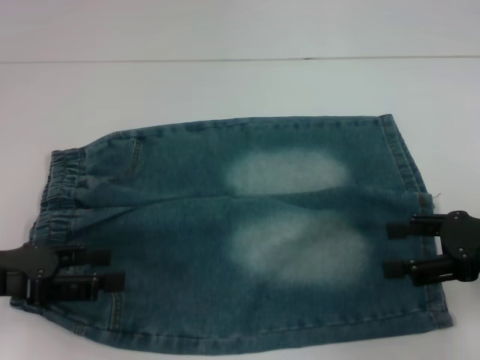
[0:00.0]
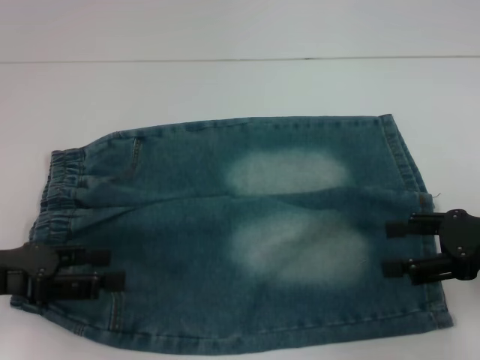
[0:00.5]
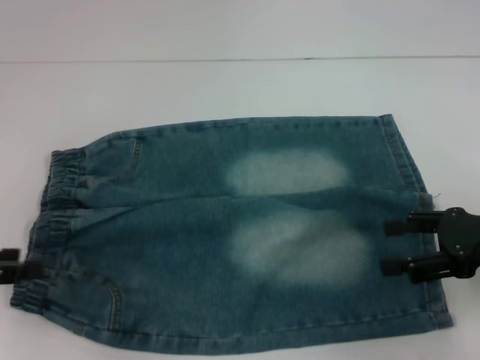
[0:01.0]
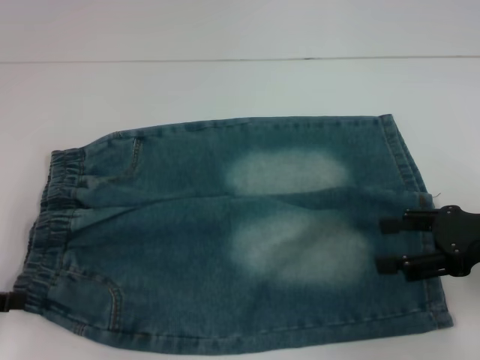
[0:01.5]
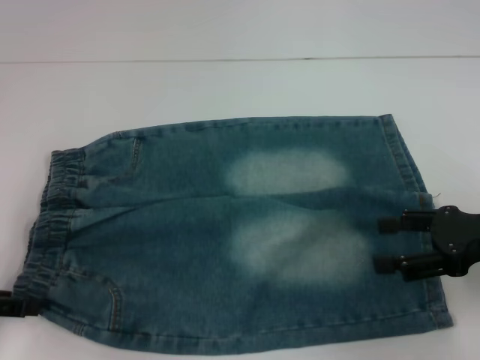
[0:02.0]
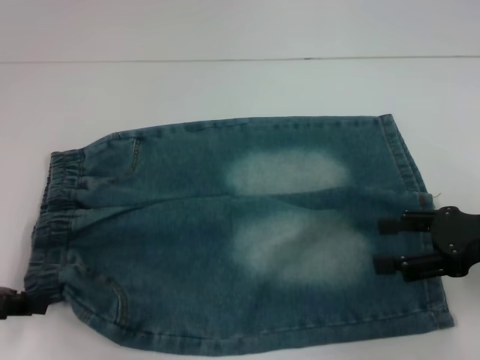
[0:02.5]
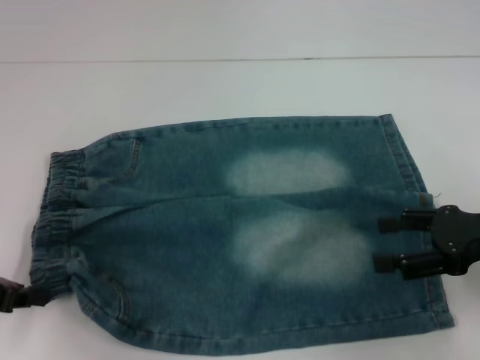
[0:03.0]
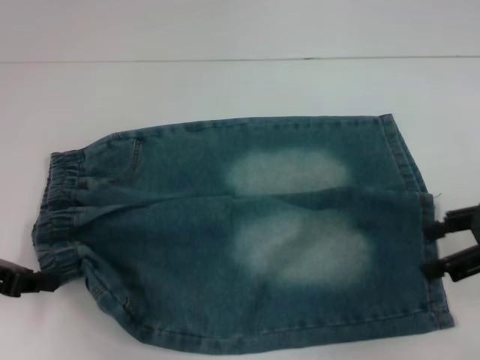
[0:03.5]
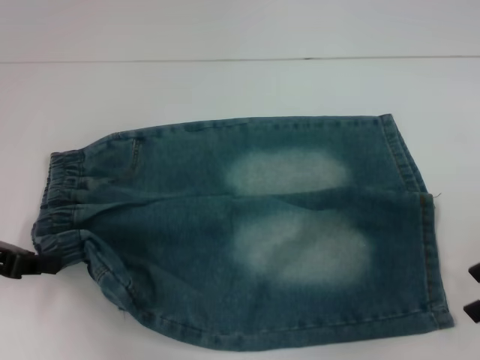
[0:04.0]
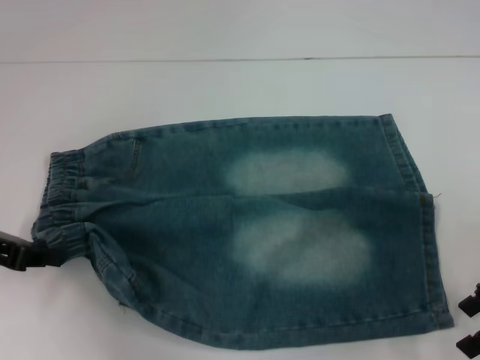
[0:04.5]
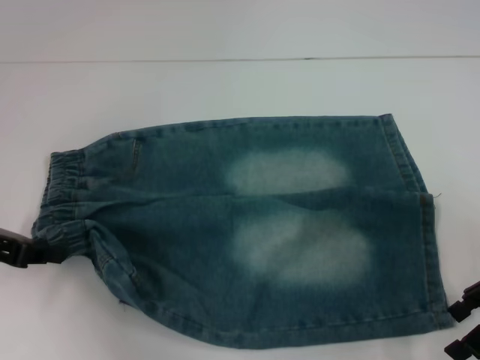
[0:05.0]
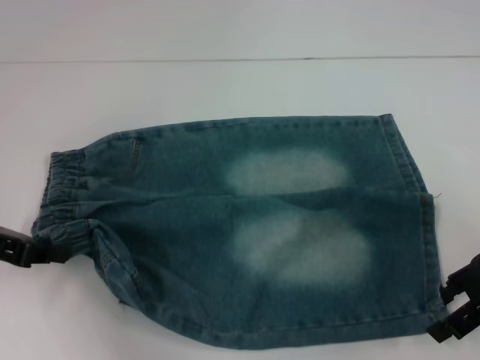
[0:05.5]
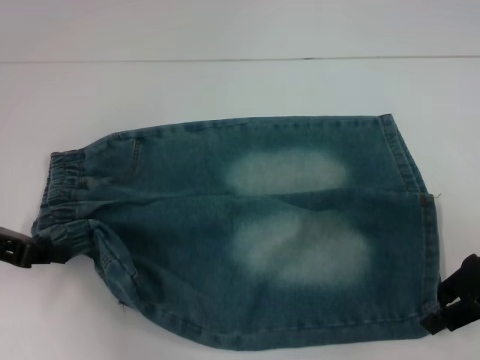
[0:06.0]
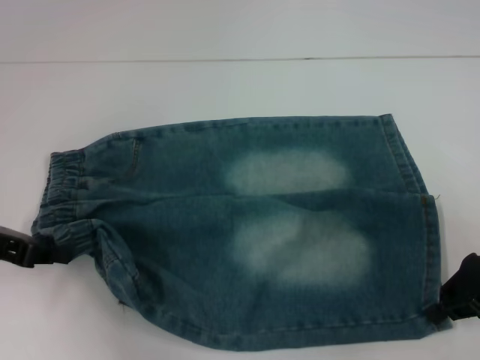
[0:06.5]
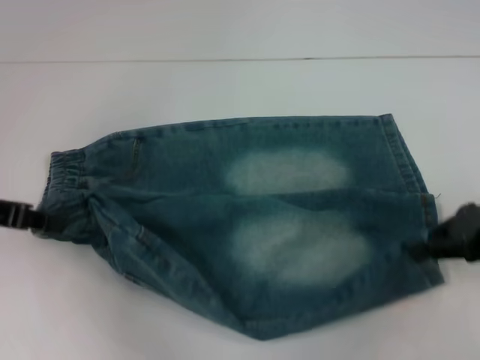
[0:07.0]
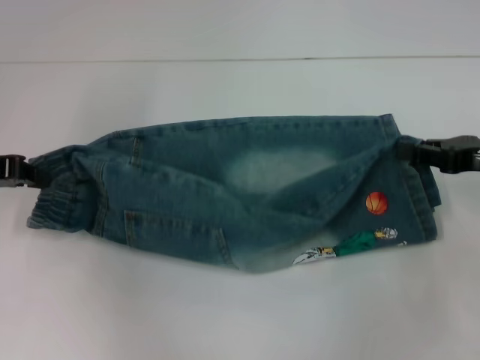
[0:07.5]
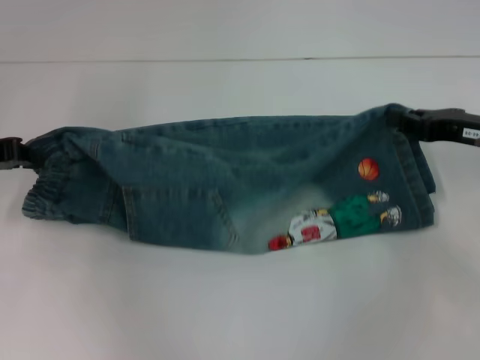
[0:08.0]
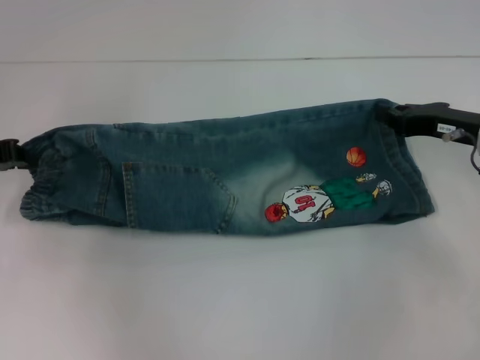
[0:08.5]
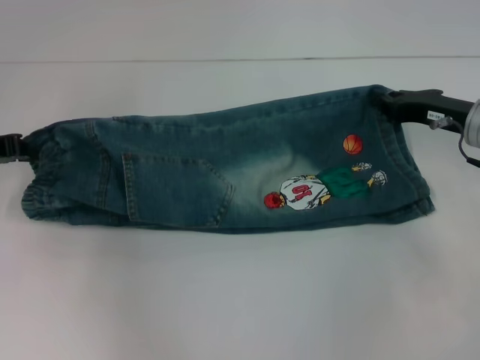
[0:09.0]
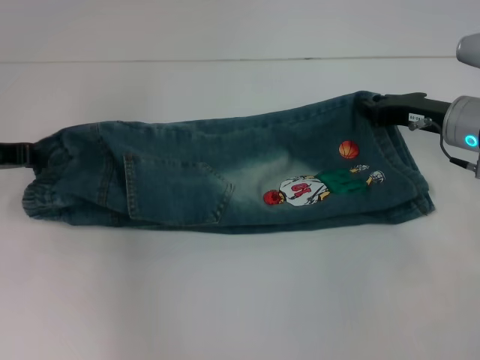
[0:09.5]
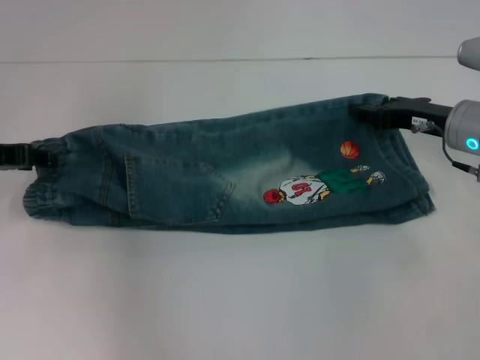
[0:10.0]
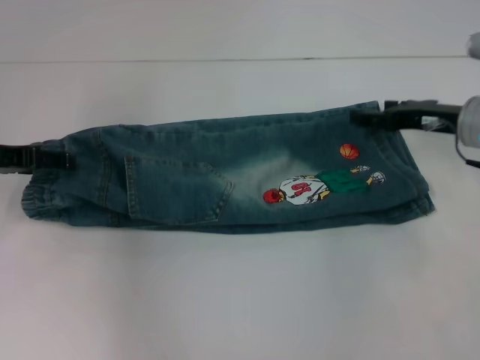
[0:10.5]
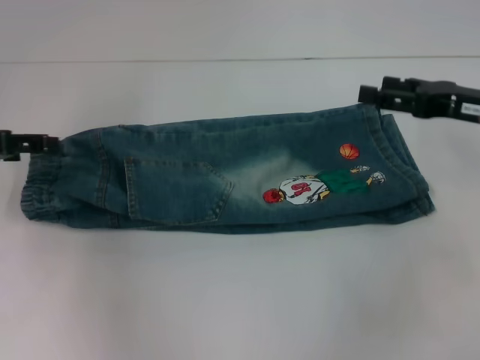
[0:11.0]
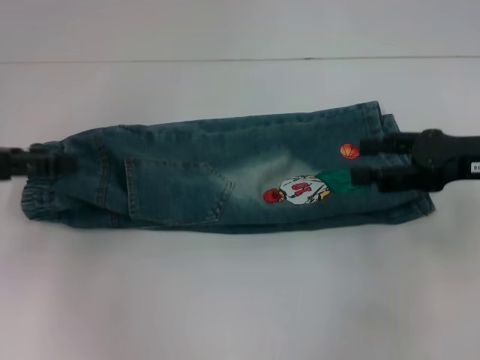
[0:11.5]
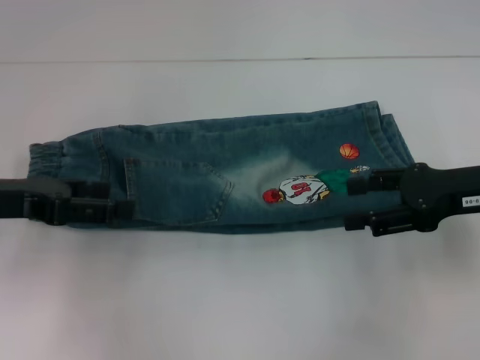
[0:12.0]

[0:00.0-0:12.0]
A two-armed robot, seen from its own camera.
Step, 0:00.0 to 0:02.0: Hold the lower left waistband with your left hand.
Step, 0:02.5 to 0:06.0: Grab the lower right pant leg with your right hand.
Step, 0:06.5 to 0:10.5: Fold upward with your right hand.
0:00.0 to 0:02.0: The left gripper heads to the left, covering some 5 cm.
0:02.0 to 0:04.0: The left gripper moves roughly 5 cm, and closes its fingers. Meanwhile the right gripper changes place by some 5 cm.
0:04.0 to 0:06.0: The right gripper moves about 5 cm.
0:06.0 to 0:08.0: The left gripper shifts approximately 5 cm forward. Meanwhile the right gripper shifts by approximately 5 cm, and closes up.
0:08.0 to 0:10.0: The right gripper heads to the left, covering approximately 5 cm, and opens.
0:10.0 to 0:12.0: The left gripper heads backward, covering roughly 5 cm, and opens, while the right gripper shifts about 10 cm backward and upward, and opens up.

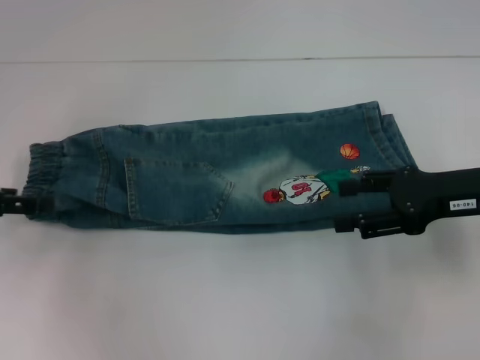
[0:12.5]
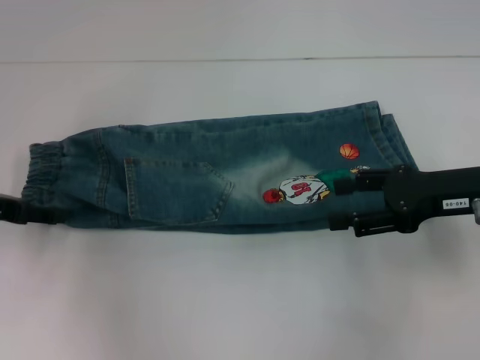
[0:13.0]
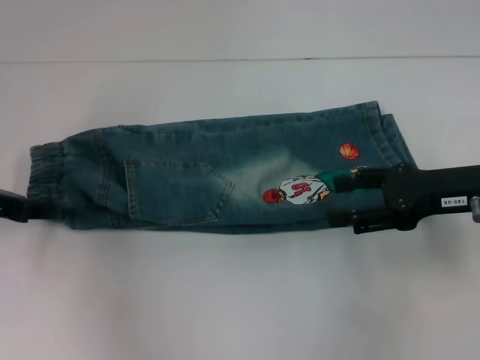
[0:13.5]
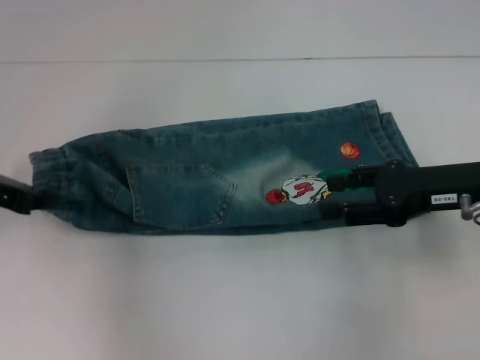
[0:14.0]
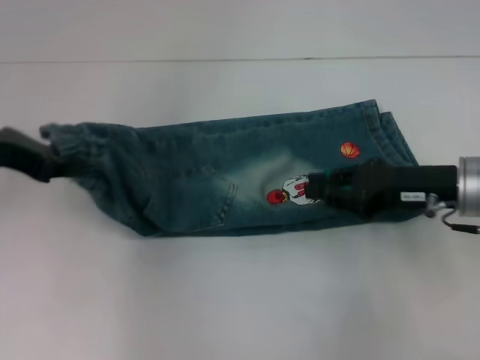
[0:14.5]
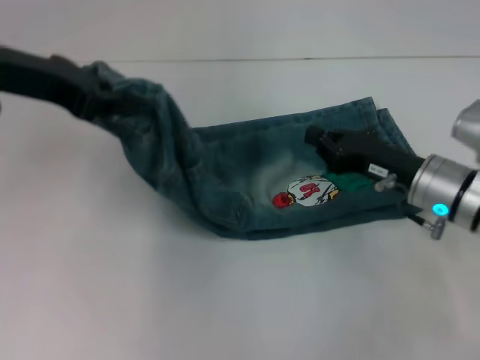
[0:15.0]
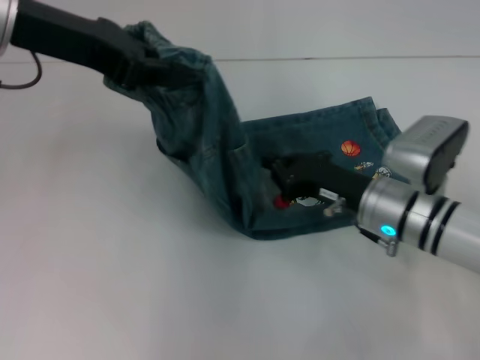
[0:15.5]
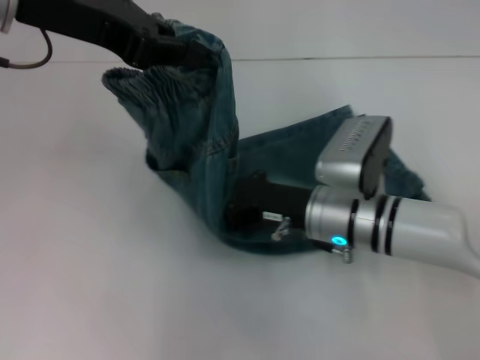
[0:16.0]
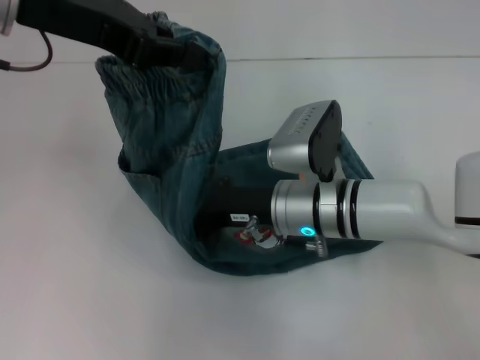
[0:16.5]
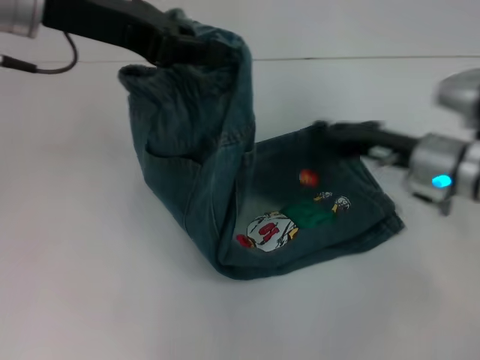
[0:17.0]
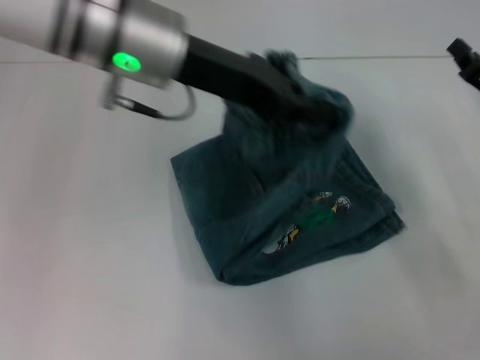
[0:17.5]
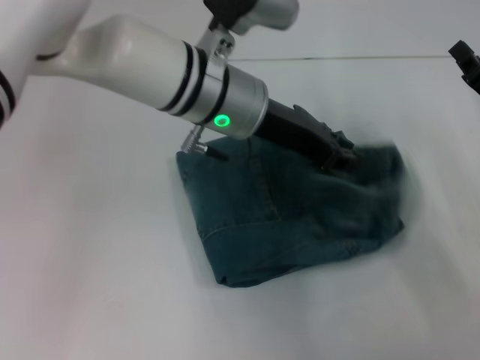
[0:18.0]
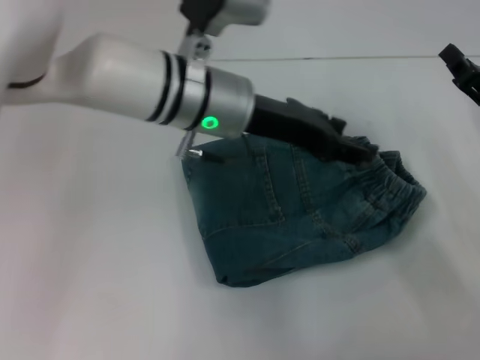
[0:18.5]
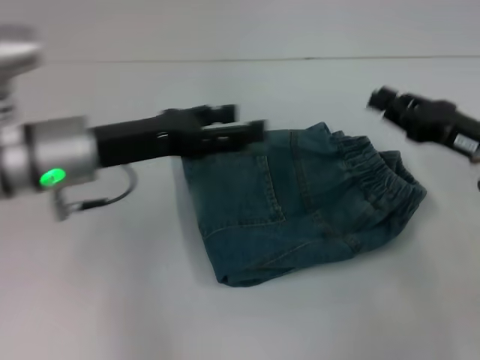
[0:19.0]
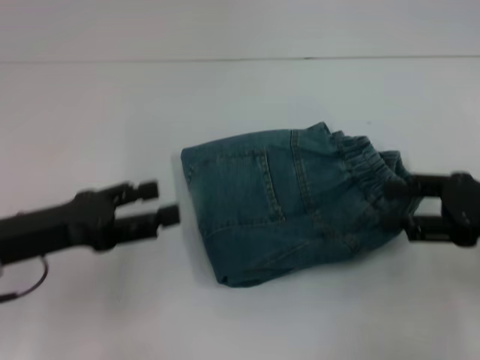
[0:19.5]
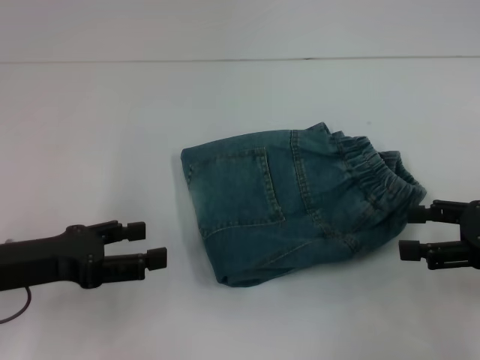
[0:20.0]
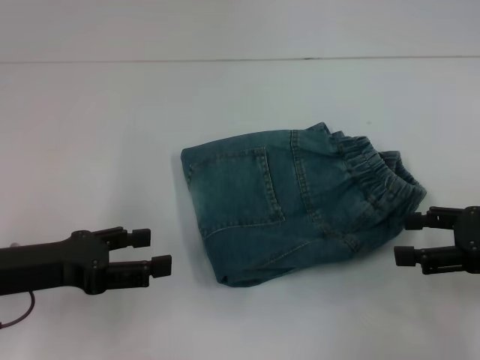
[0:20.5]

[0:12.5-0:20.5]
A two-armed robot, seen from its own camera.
Step, 0:14.0 to 0:16.5: Press the middle of the pants with your right hand.
Step, 0:17.0 to 0:18.0: Fold to the right with your left hand.
0:12.5 to 0:14.5: The left gripper shifts roughly 10 cm to the right and upward, and closes its fingers; the right gripper closes.
0:14.5 to 0:16.5: The right gripper travels to the left by some 15 cm, and closes its fingers, while the left gripper moves upward and to the right, about 10 cm.
0:16.5 to 0:18.5: The left gripper heads to the right and downward, covering approximately 20 cm, and opens. The right gripper is displaced to the right by roughly 20 cm.
0:18.5 to 0:20.5: The right gripper shifts approximately 5 cm backward, and opens. Meanwhile the left gripper moves to the left and backward, some 25 cm, and opens its fingers.

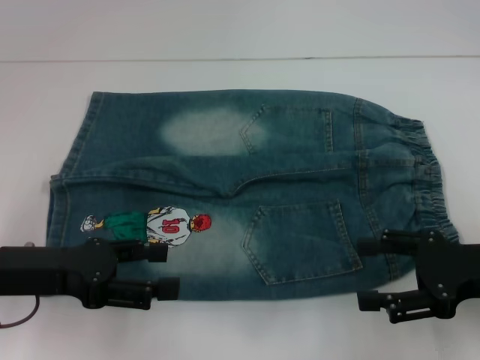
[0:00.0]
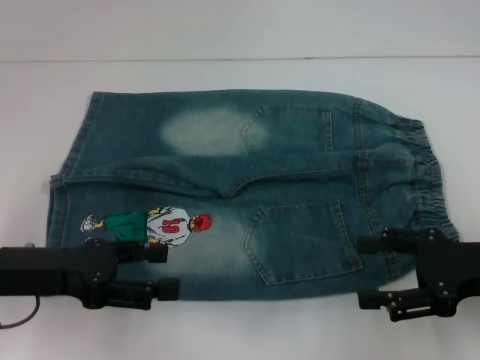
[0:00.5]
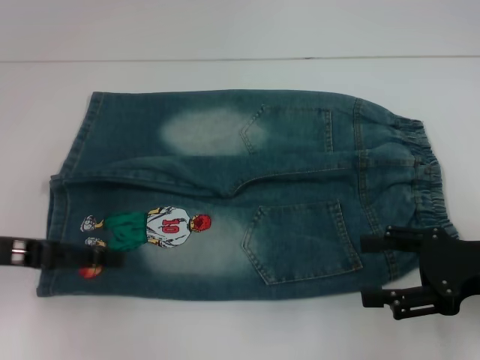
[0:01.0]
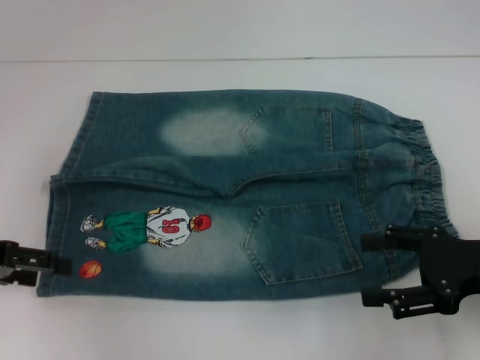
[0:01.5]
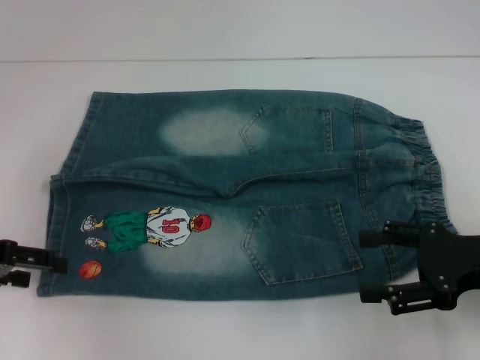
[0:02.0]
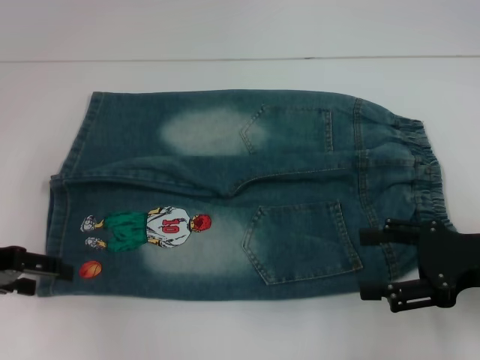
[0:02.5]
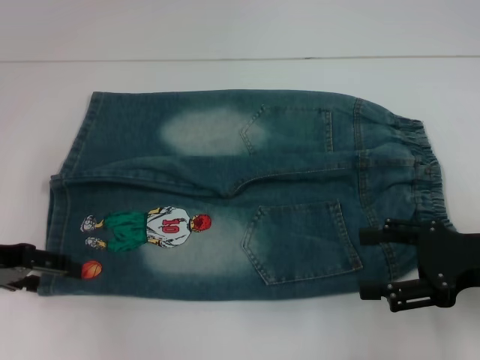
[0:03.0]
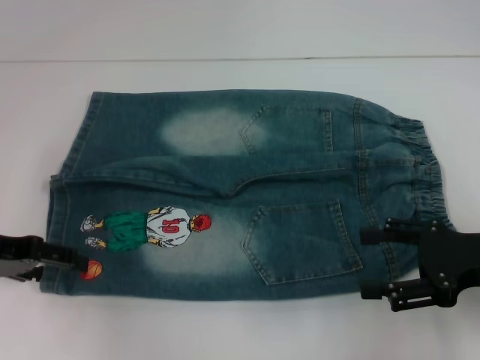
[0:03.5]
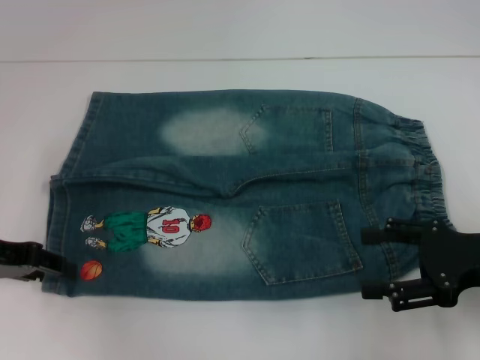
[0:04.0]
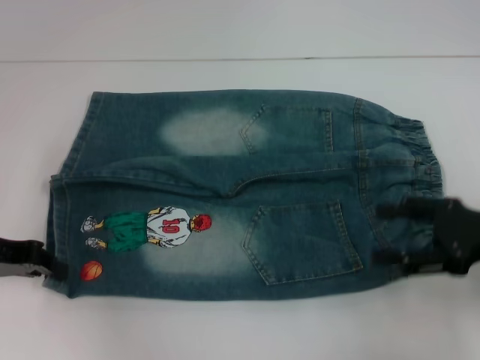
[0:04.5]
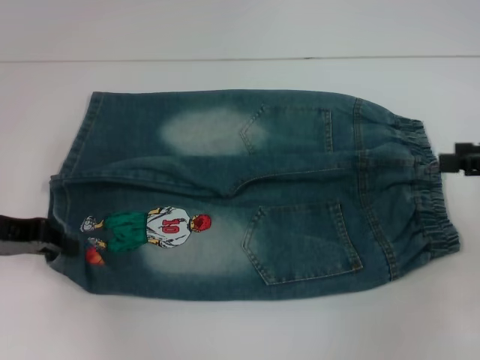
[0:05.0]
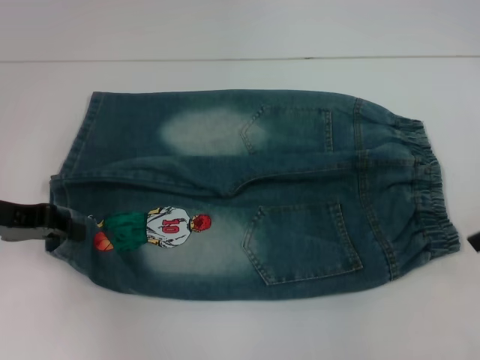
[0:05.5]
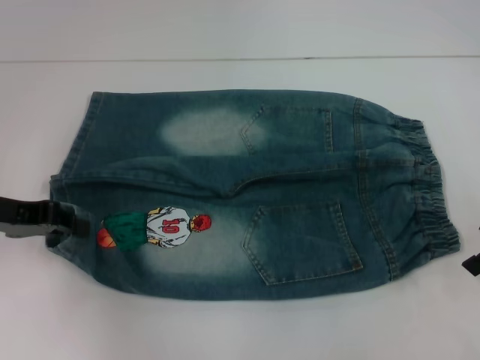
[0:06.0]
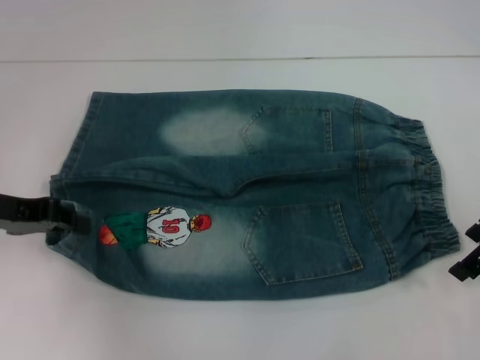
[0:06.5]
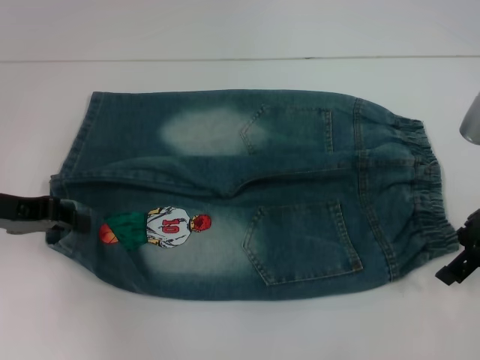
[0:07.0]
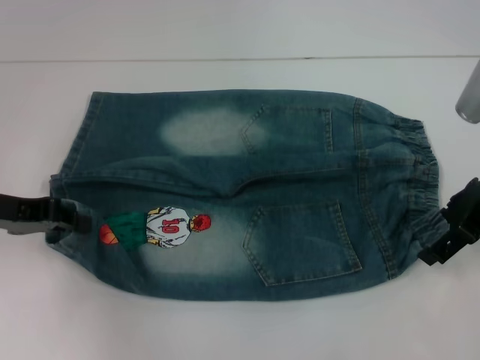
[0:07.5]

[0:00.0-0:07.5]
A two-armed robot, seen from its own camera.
Step, 0:00.0 to 0:04.0: Grab the lower left pant leg with your left hand.
0:00.0 to 0:02.0: The left gripper travels to the left by about 10 cm.
0:02.0 to 0:04.0: The grippers stay close to where they were, moving slightly.
0:04.0 to 0:05.5: The right gripper heads upward, forward and to the right, covering some 10 cm. The left gripper closes.
0:05.5 to 0:07.5: The right gripper moves to the left, roughly 5 cm.
